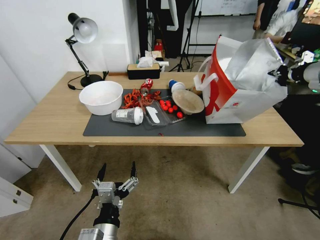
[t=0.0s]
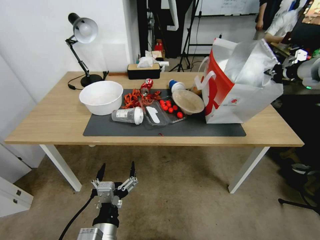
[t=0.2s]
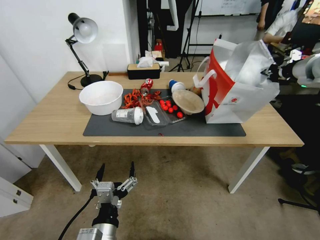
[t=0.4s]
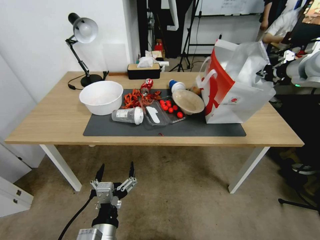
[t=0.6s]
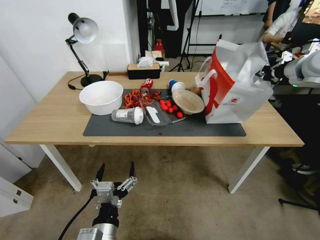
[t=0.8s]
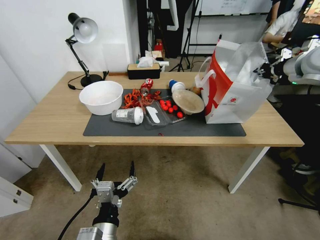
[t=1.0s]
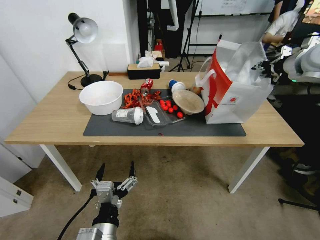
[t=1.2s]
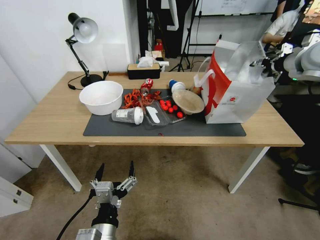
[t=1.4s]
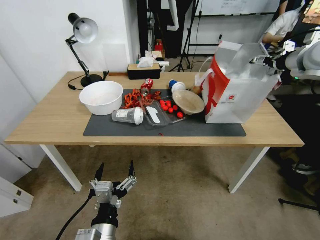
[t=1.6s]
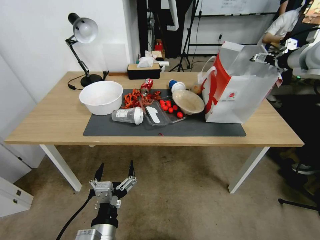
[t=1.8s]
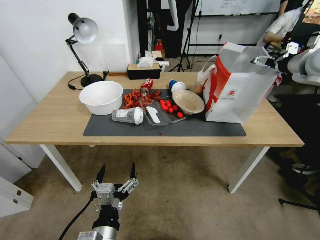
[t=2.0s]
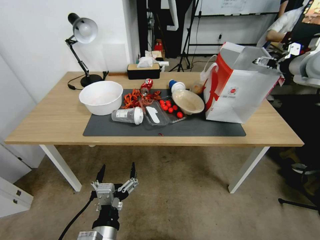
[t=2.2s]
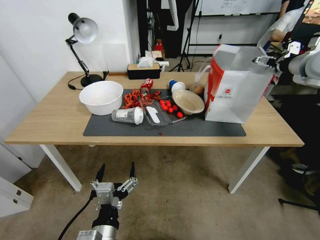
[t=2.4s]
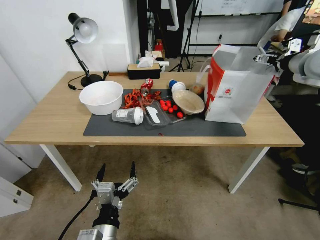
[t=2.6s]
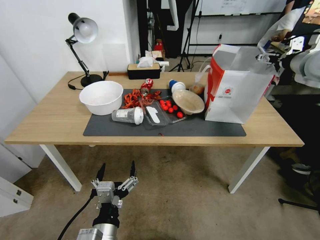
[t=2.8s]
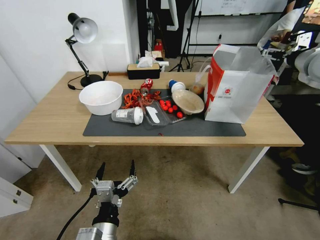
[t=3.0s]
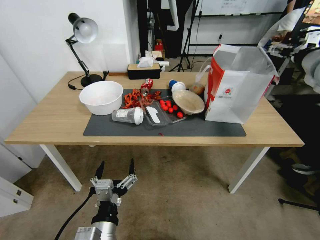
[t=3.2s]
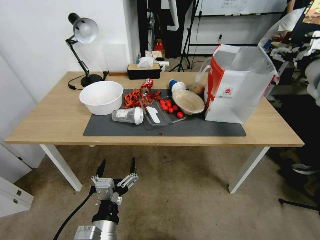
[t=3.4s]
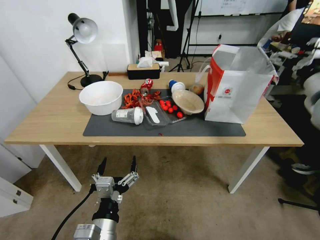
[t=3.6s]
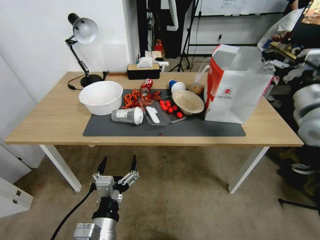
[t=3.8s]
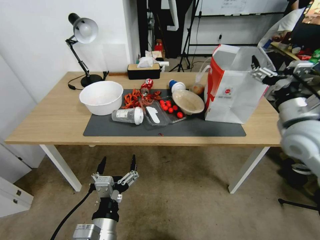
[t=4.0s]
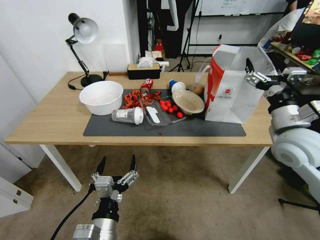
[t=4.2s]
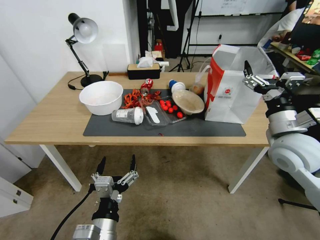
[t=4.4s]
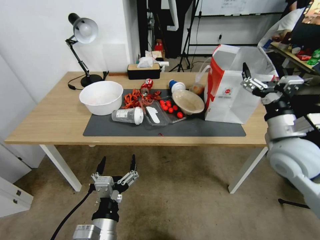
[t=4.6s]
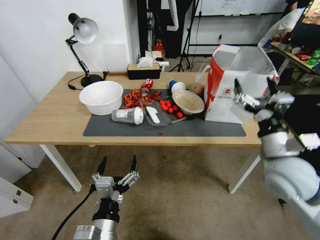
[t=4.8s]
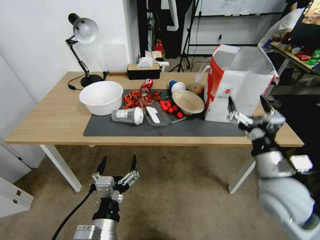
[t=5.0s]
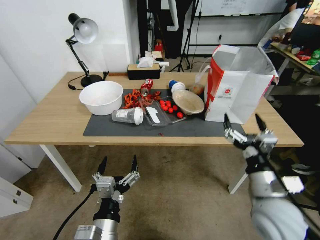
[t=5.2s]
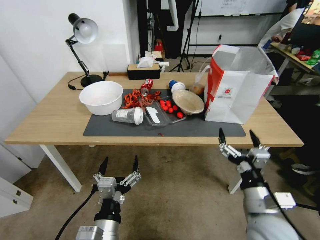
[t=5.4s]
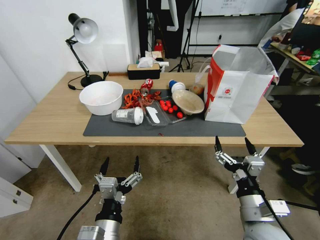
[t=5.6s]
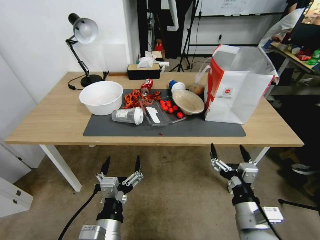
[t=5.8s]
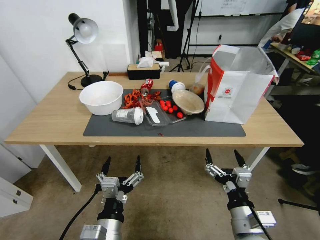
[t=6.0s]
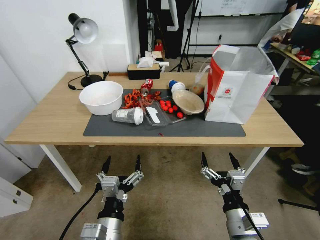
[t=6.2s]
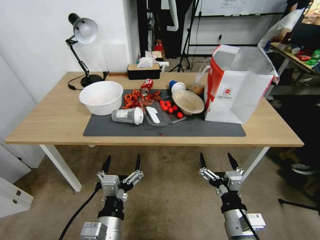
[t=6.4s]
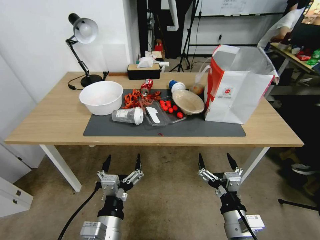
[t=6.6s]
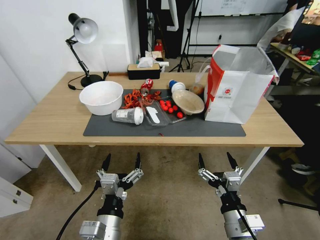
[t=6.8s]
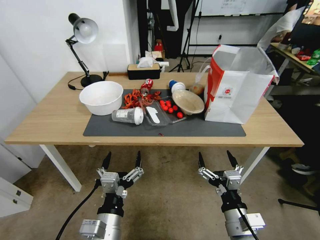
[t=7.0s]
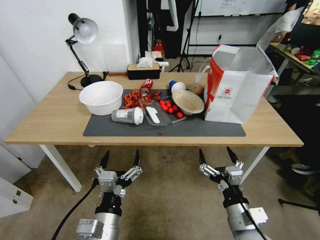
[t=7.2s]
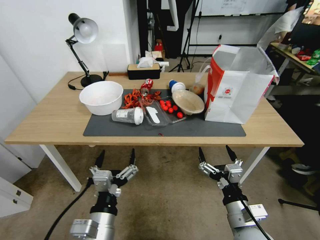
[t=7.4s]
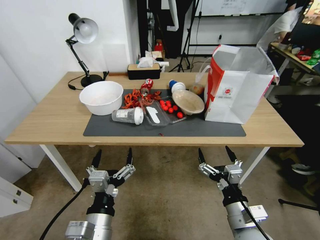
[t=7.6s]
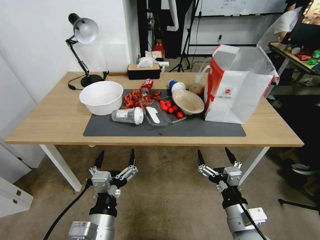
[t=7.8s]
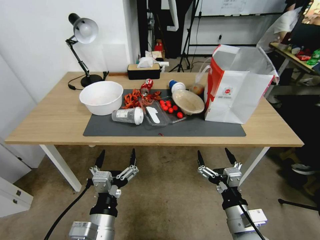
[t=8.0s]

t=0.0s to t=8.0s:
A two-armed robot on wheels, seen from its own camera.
Task of the whole recording: Pick up the food delivery bag from the floor and place it on the table.
t=0.0s to t=1.6s: The right gripper heads forward, covering some 5 cm, and opens up.
t=1.6s to t=3.2s: The right gripper travels backward by roughly 5 cm.
t=3.2s to t=4.8s: The right gripper goes approximately 30 cm downward, backward and to the left.
t=4.8s to t=6.4s: The right gripper moves backward, downward and to the left, some 25 cm.
t=6.4s to t=8.0s: The grippers stay close to where they were, moving slightly.
